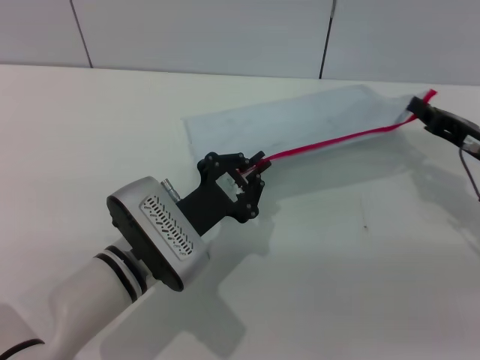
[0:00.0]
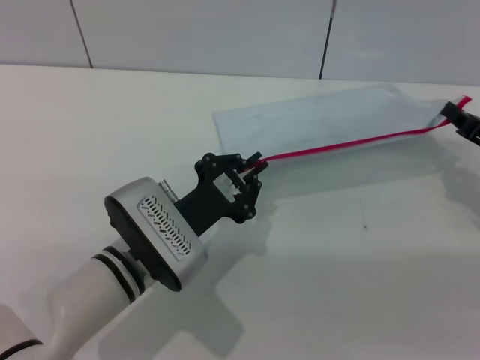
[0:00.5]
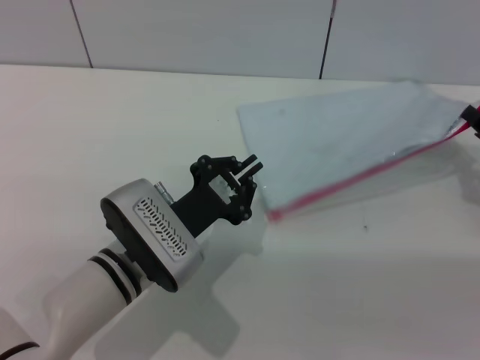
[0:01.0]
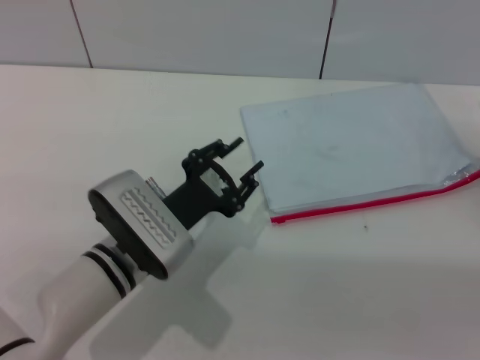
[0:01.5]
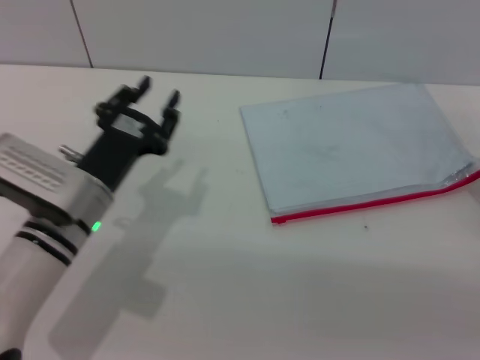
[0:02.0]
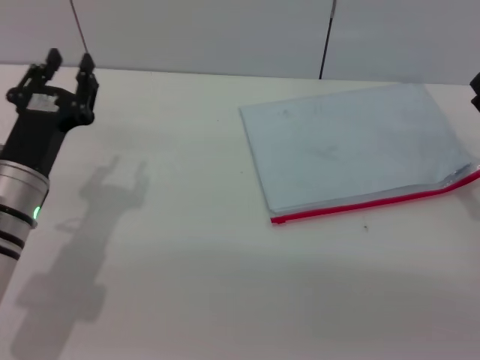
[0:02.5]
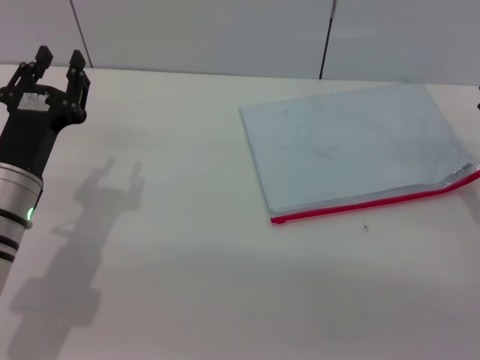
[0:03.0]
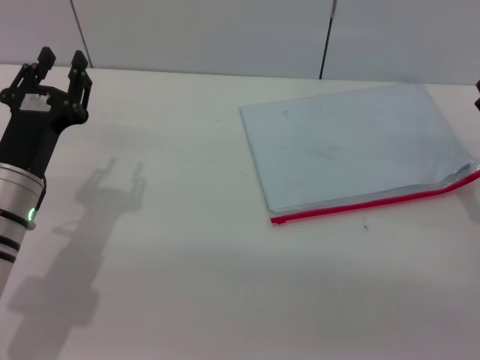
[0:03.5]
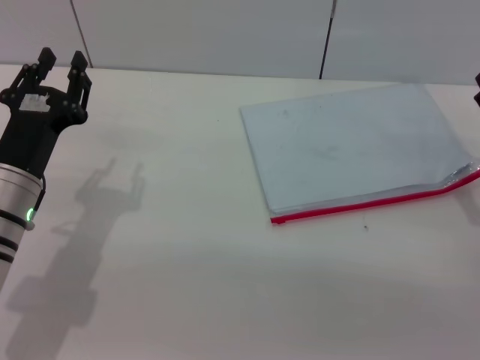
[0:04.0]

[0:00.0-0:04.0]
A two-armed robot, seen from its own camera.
Step, 0:01.5 to 0:02.5: Place the transparent plastic bag.
0:00.0 to 0:02.0: The left gripper travels to the left by some 5 cm, and opens its fingers. The right gripper shifts by some 5 cm, and opens up.
0:02.0 to 0:04.0: The left gripper goes about 5 cm to the left.
